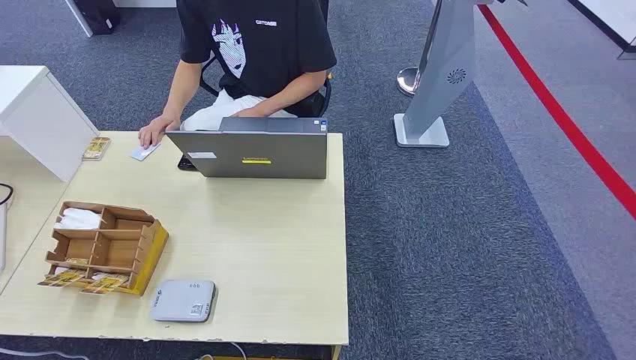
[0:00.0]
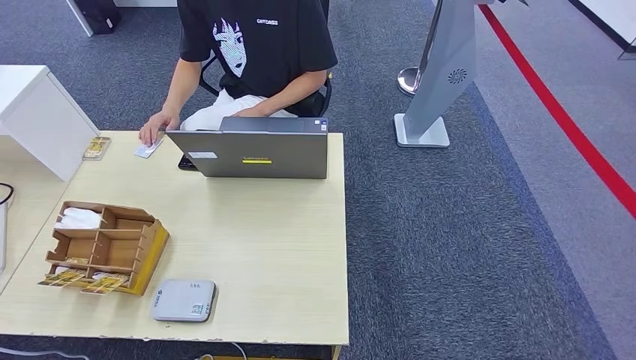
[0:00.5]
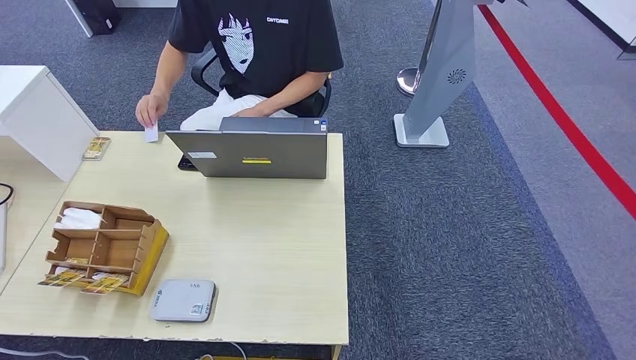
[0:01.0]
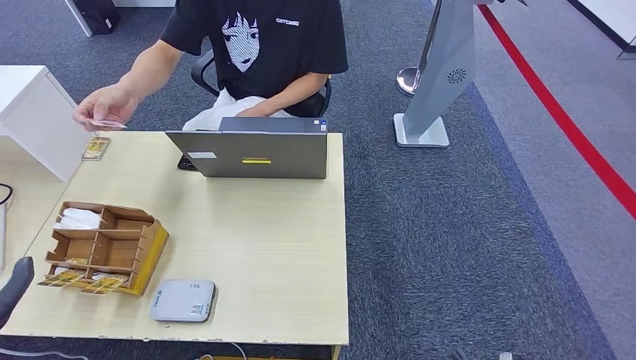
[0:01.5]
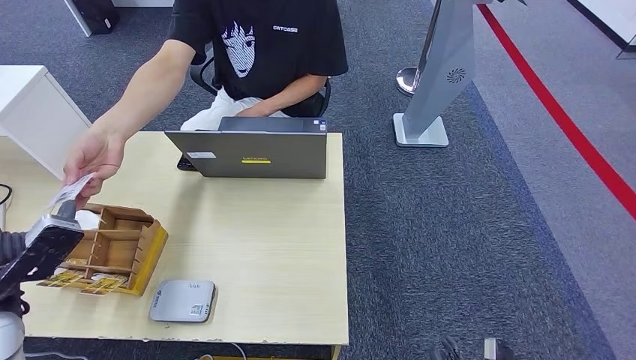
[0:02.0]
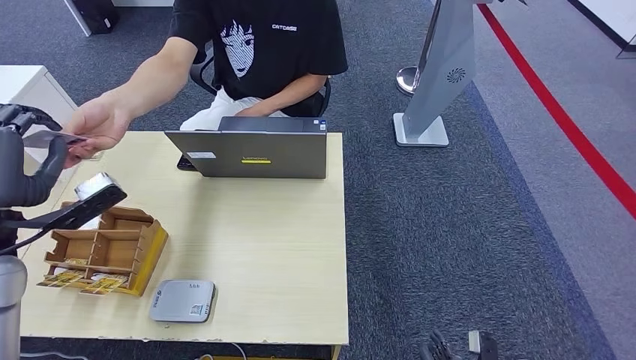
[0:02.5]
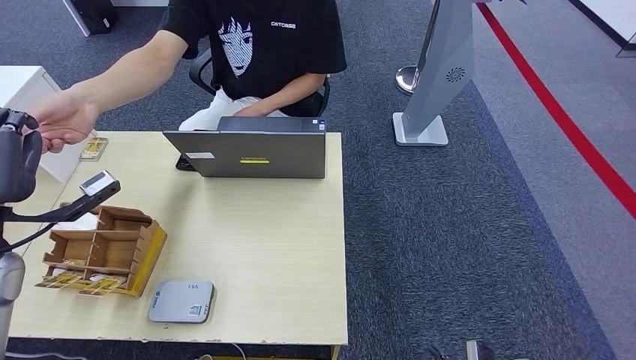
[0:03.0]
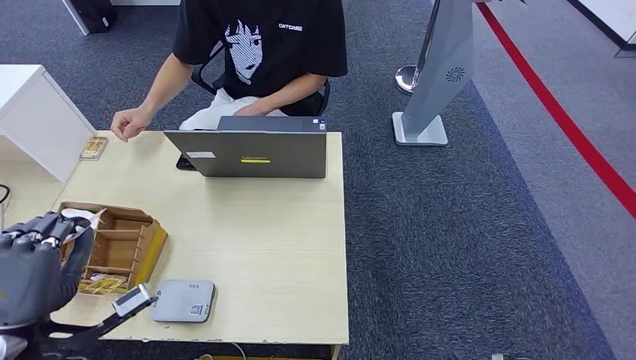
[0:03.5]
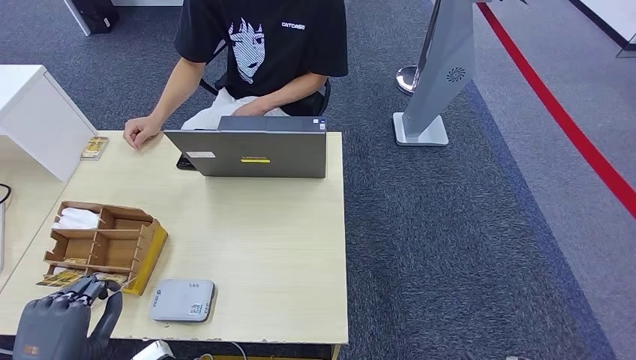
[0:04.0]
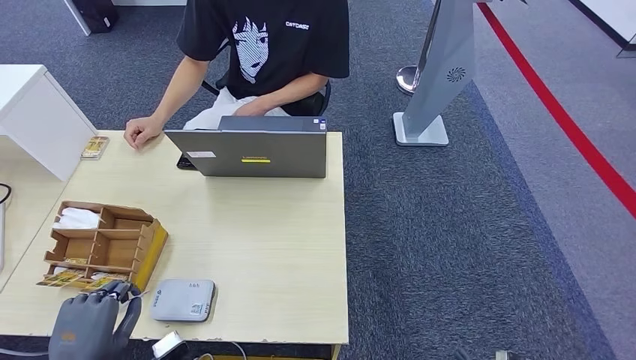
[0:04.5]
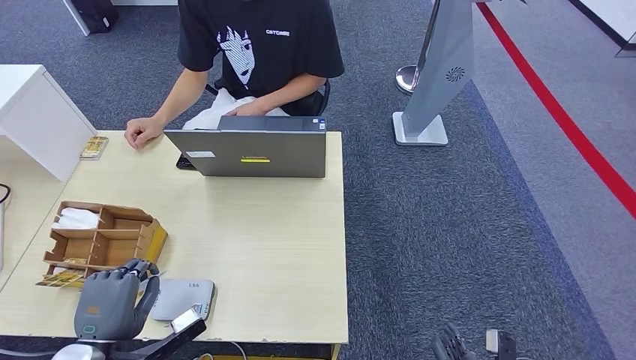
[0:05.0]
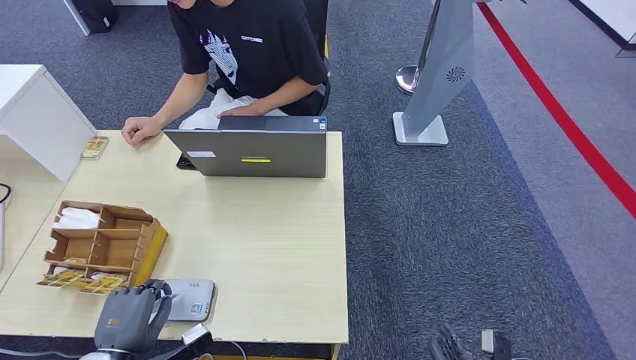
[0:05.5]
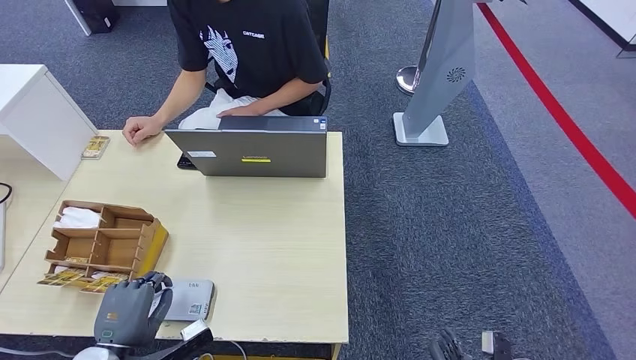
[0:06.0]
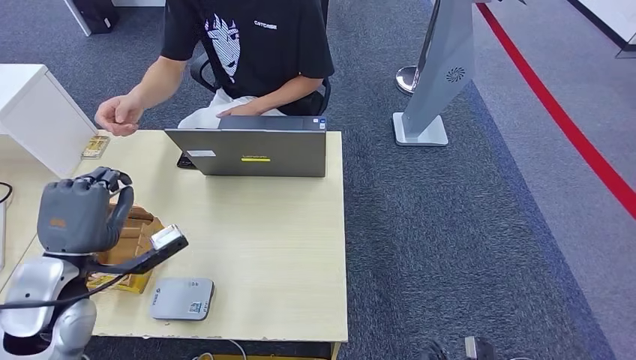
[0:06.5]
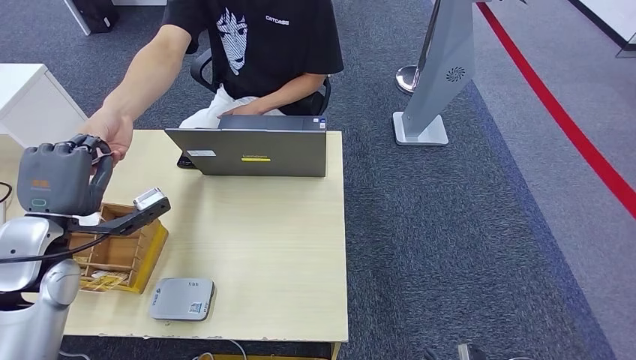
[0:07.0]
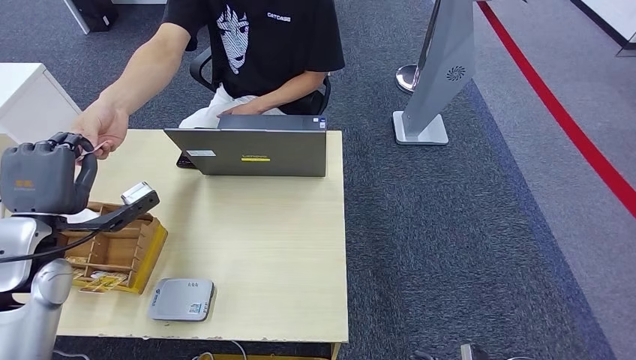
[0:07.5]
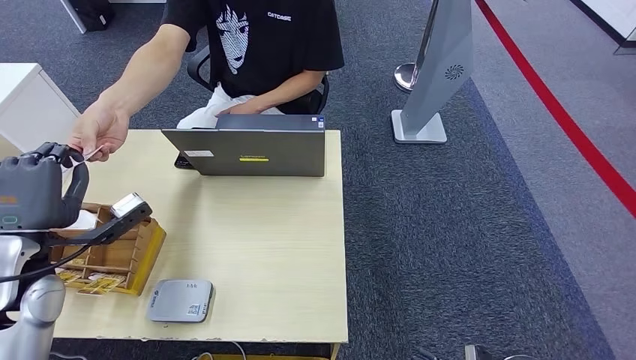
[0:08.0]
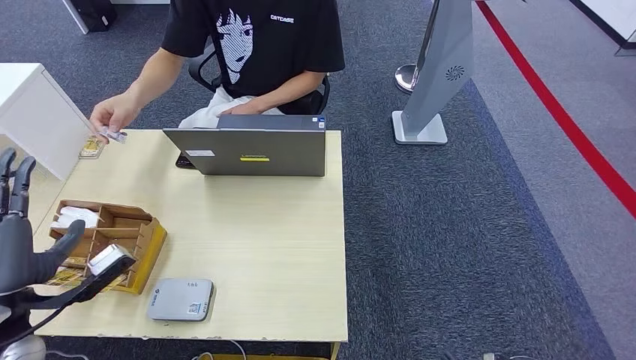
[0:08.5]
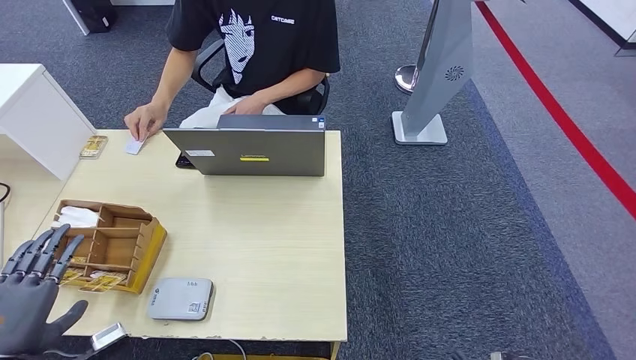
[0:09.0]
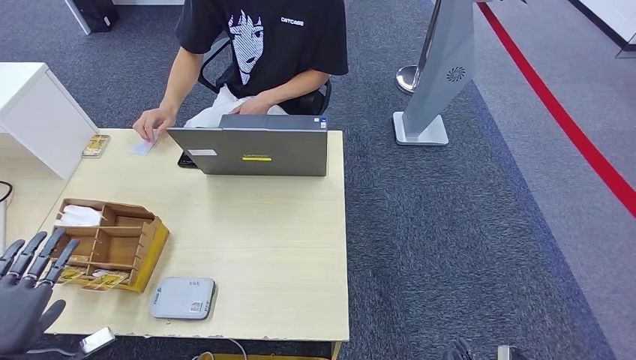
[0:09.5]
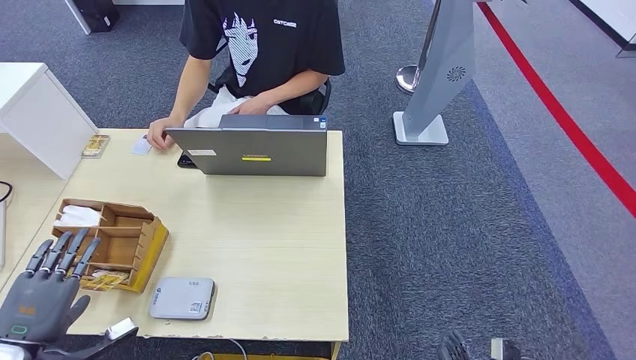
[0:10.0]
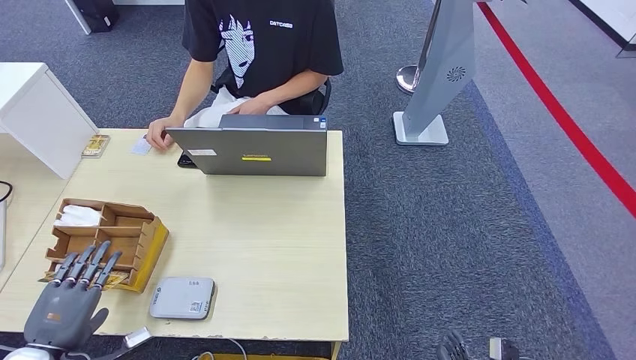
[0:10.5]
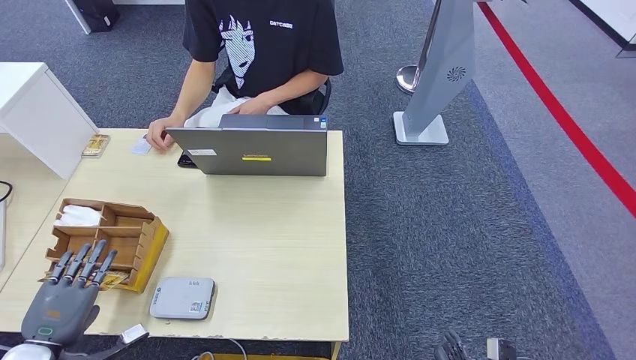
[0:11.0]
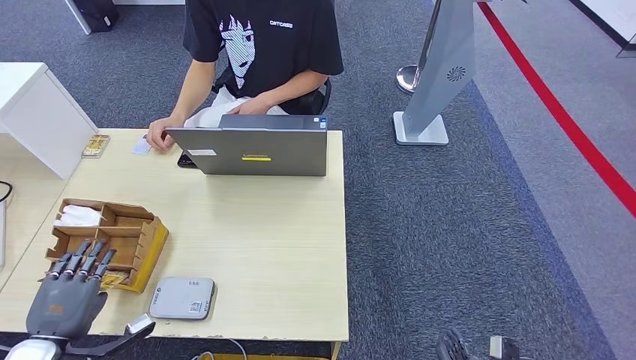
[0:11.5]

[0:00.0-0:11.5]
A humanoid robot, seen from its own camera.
Step, 0:00.0 to 0:03.0: Take the ID card from the person's hand.
Step, 0:03.5 to 0:06.0: Place the ID card on the card reader.
Step, 0:06.5 to 0:08.5: Hand the ID card to the person.
0:02.0 to 0:04.0: The left hand moves backward and downward, approximately 15 cm.
0:04.0 to 0:06.0: The left hand heads downward, covering roughly 10 cm.
0:06.0 to 0:07.5: The left hand moves upward and forward, approximately 25 cm.
0:07.5 to 0:09.5: The left hand moves backward, to the left and downward, some 20 cm.
0:09.5 to 0:11.5: The left hand travels downward by about 5 cm.

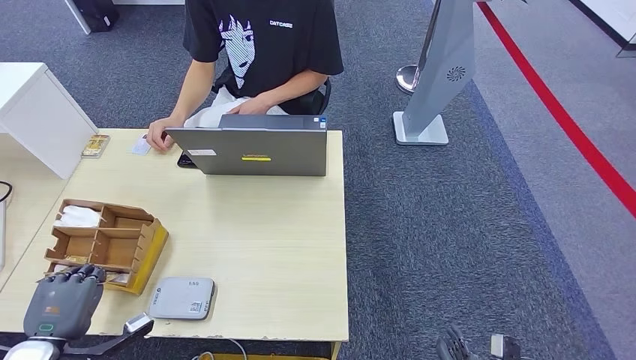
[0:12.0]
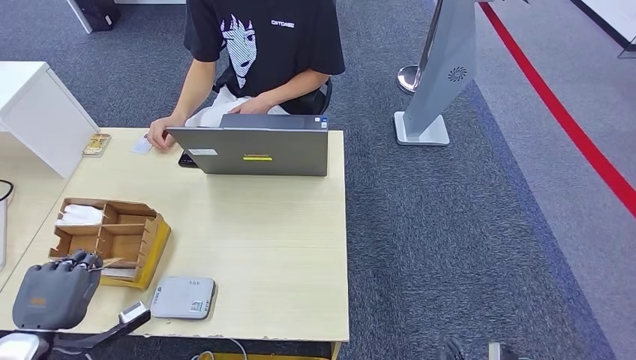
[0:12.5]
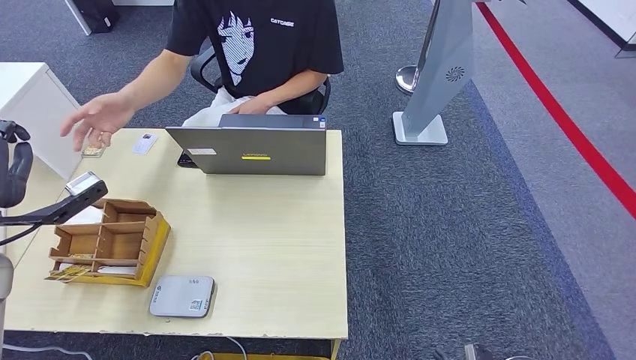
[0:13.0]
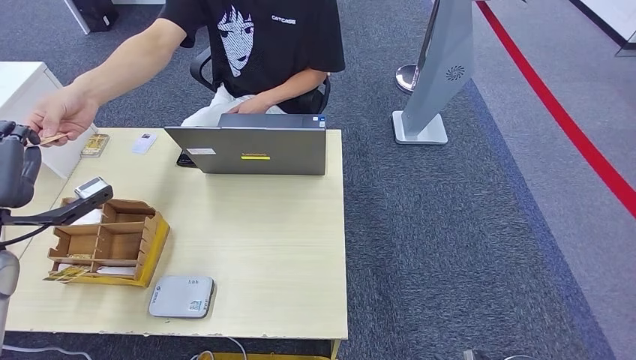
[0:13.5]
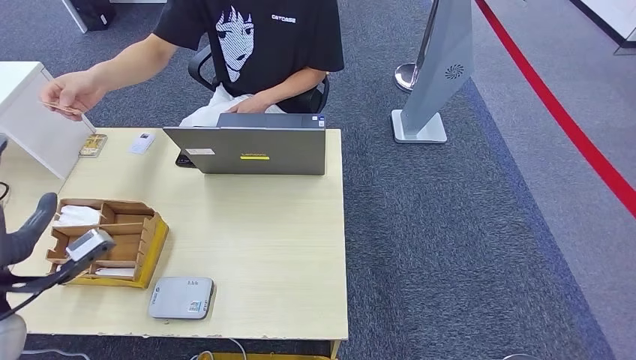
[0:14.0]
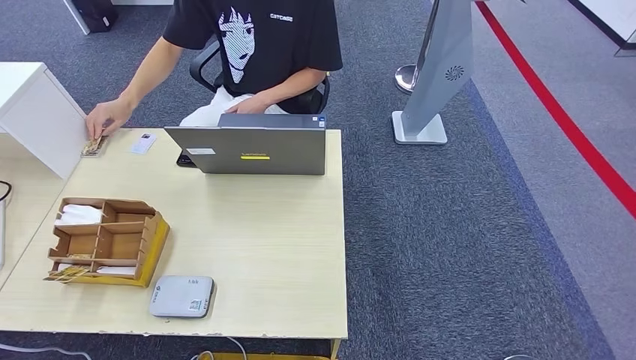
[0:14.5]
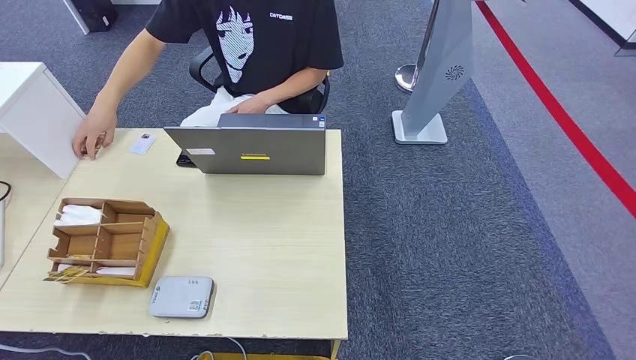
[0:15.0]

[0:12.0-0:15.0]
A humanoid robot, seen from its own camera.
Step, 0:13.0 to 0:15.0: Hand the room key to the person.
0:12.0 to 0:13.5: The left hand goes roughly 25 cm upward and forward.
0:13.5 to 0:15.0: The left hand is displaced backward by roughly 30 cm. Meanwhile the right hand heads upward, covering some 5 cm.
